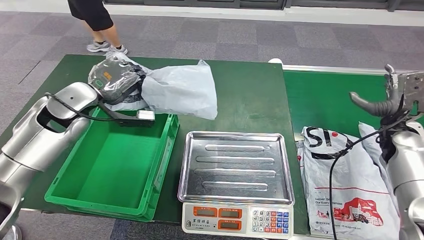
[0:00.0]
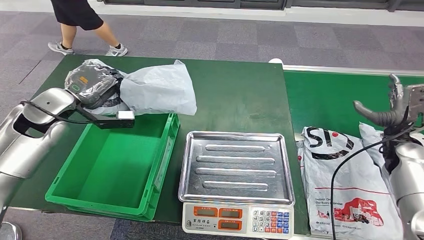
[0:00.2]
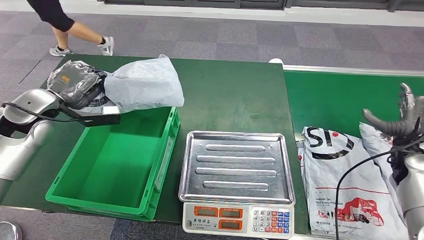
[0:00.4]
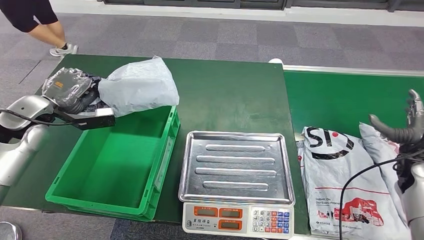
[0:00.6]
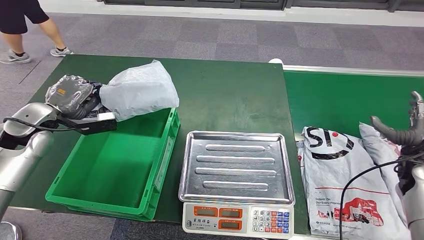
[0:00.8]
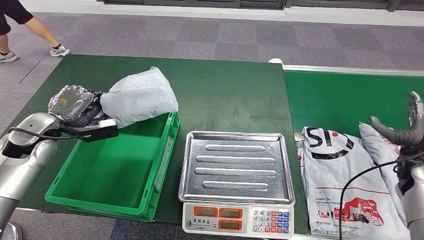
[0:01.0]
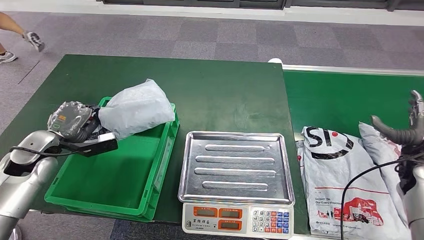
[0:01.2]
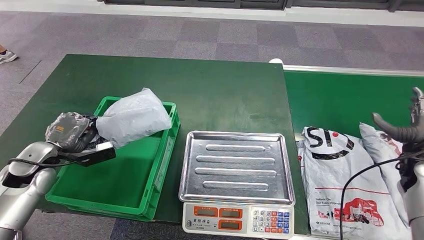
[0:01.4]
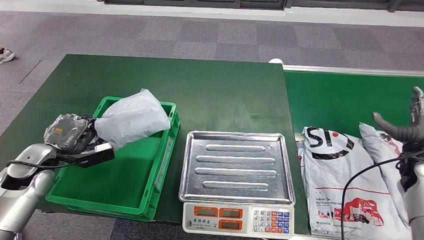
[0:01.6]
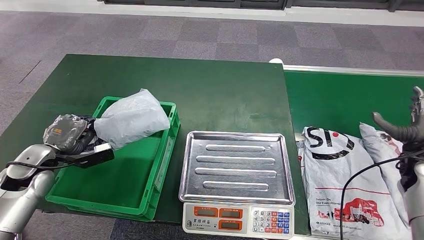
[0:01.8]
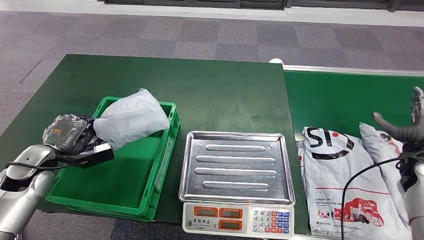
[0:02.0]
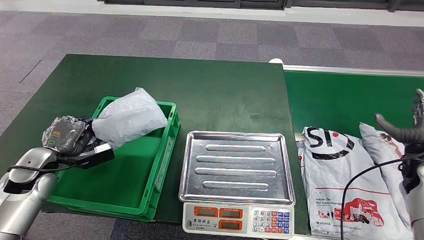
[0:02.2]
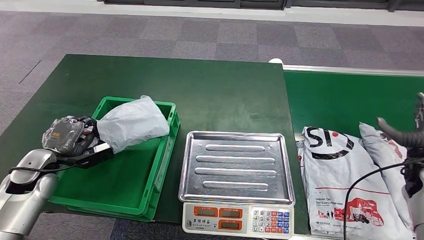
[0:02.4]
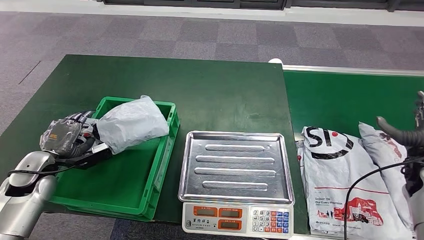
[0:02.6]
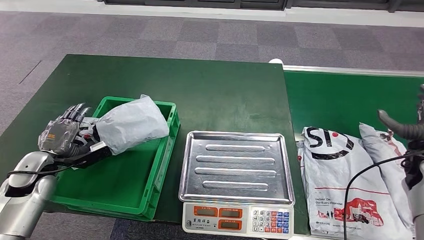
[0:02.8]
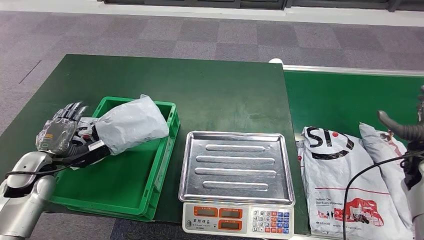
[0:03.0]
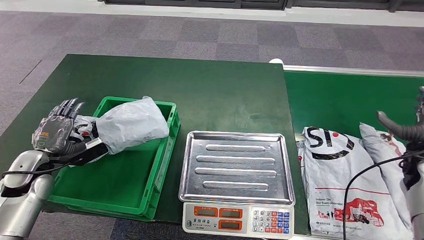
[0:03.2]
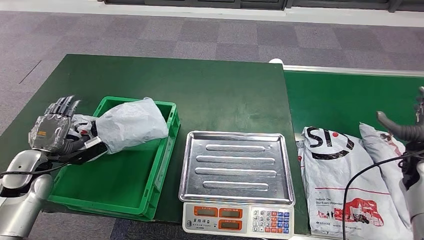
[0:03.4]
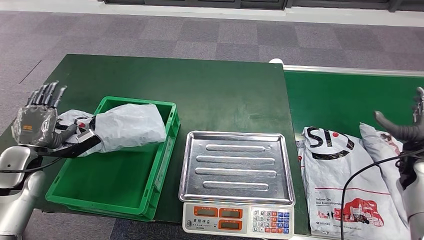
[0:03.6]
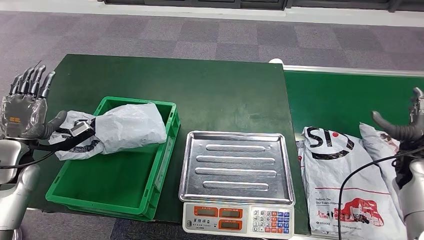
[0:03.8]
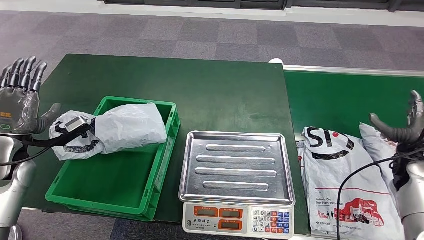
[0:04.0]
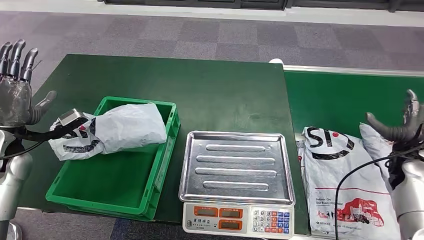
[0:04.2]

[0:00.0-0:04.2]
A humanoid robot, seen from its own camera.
Step, 0:00.0 to 0:04.0: Put the parcel inside the courier box.
0:01.4 to 0:02.8: The hands make only small movements.
0:02.8 to 0:04.2: The left hand moves upward, some 10 cm.
